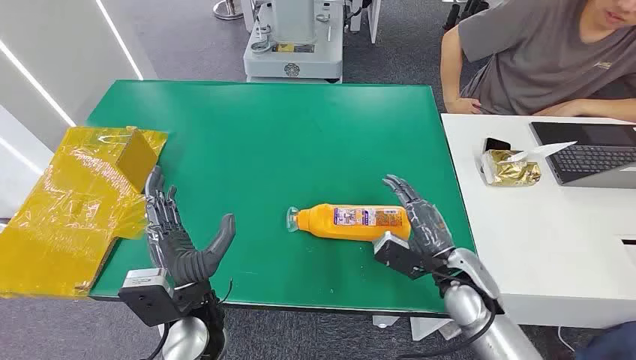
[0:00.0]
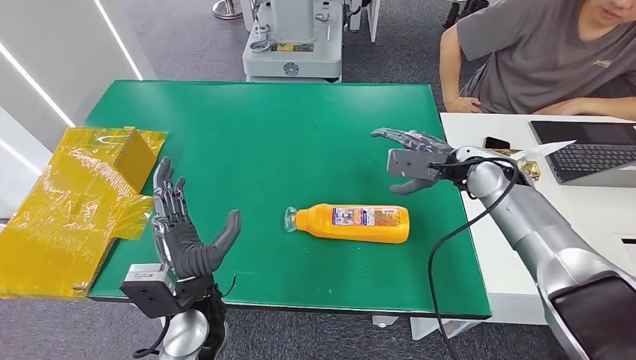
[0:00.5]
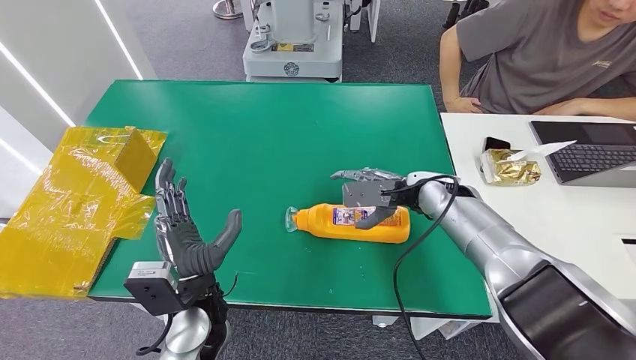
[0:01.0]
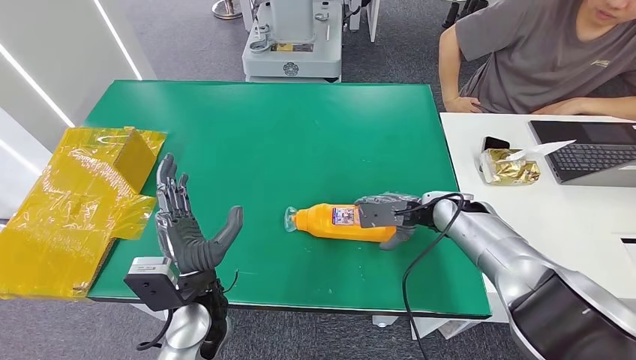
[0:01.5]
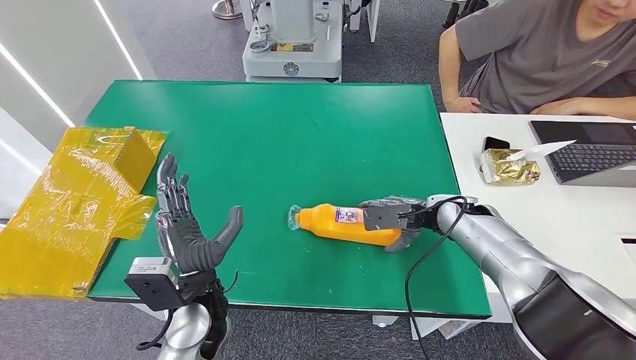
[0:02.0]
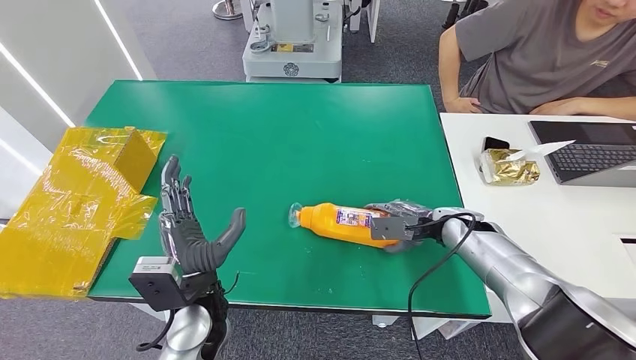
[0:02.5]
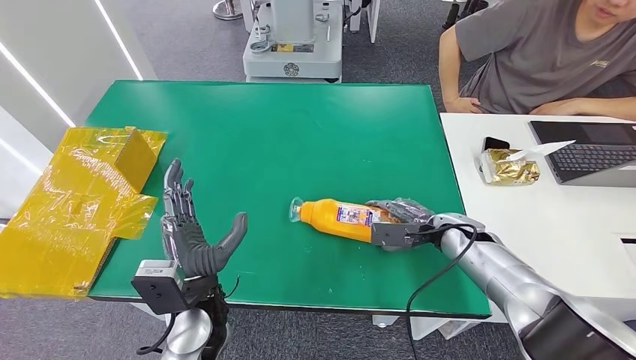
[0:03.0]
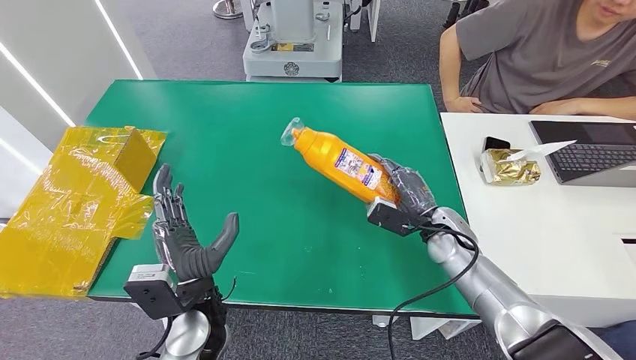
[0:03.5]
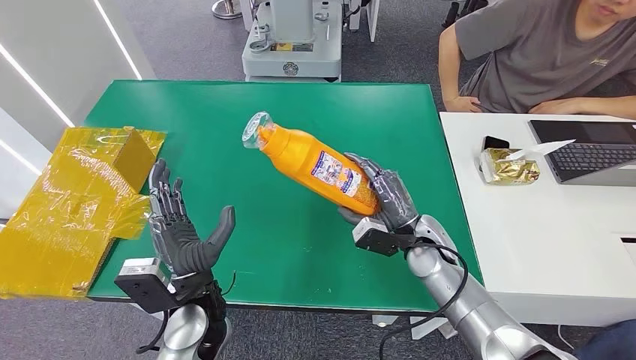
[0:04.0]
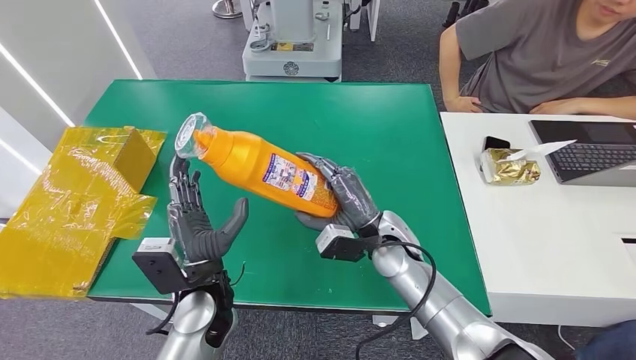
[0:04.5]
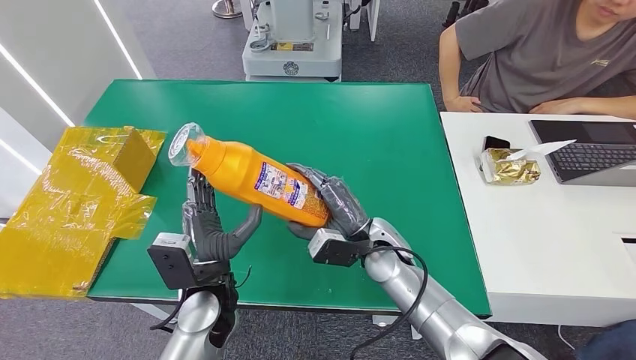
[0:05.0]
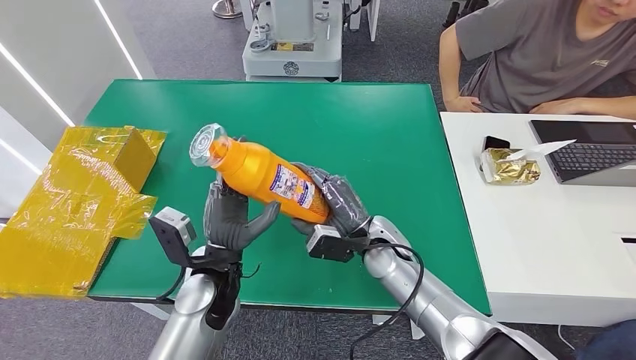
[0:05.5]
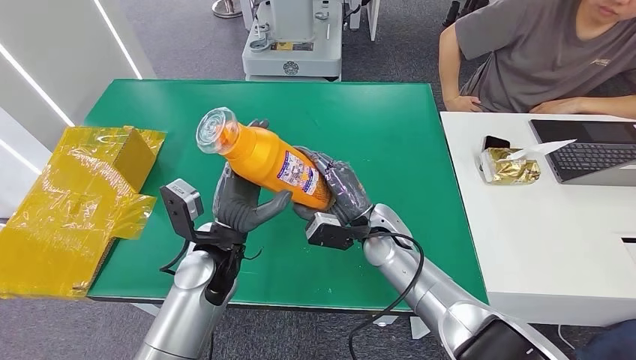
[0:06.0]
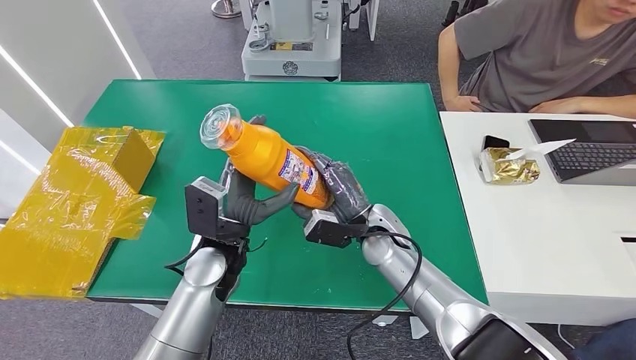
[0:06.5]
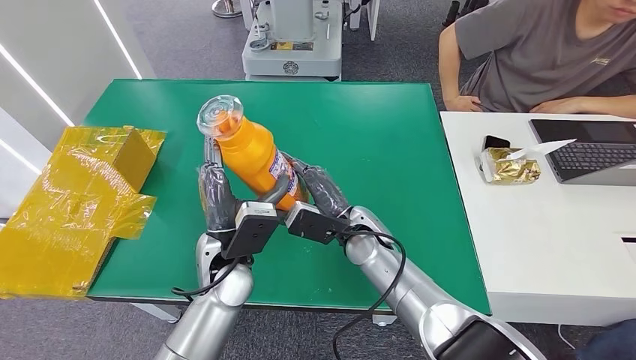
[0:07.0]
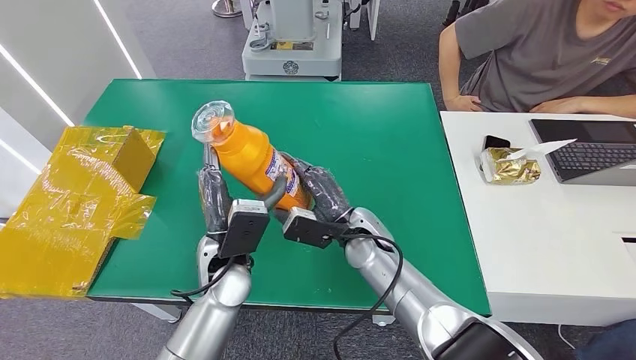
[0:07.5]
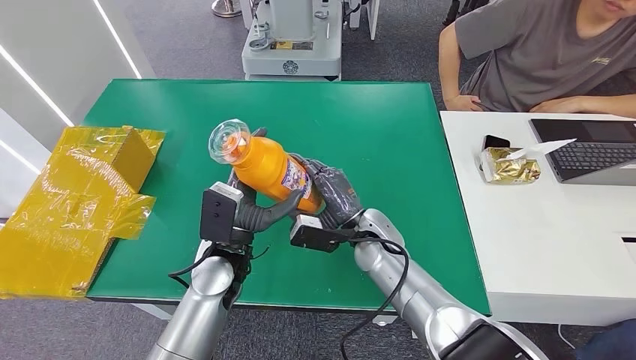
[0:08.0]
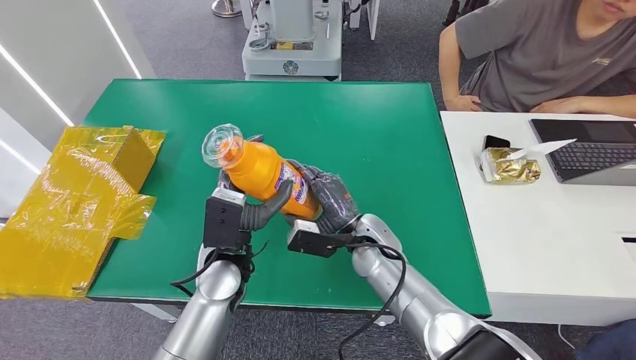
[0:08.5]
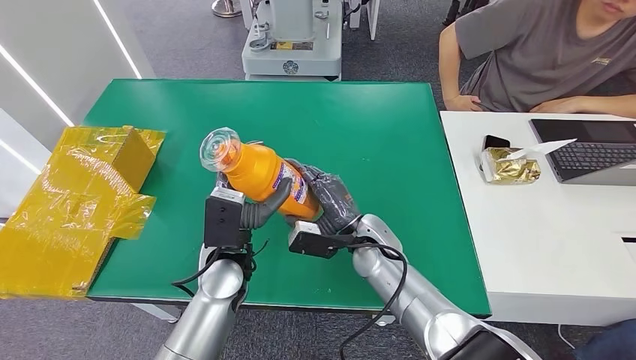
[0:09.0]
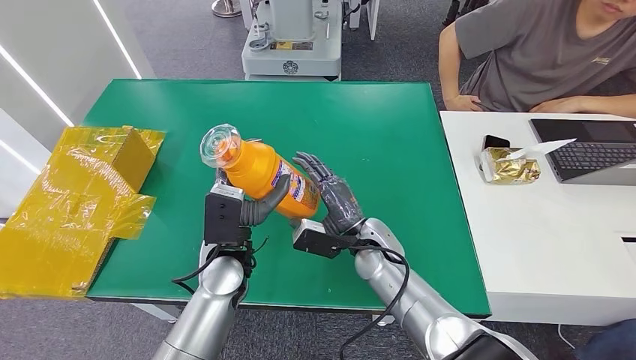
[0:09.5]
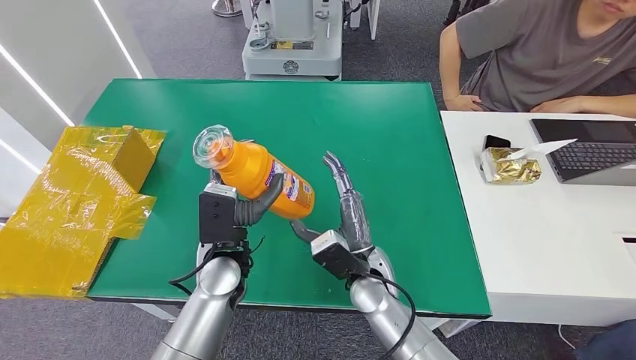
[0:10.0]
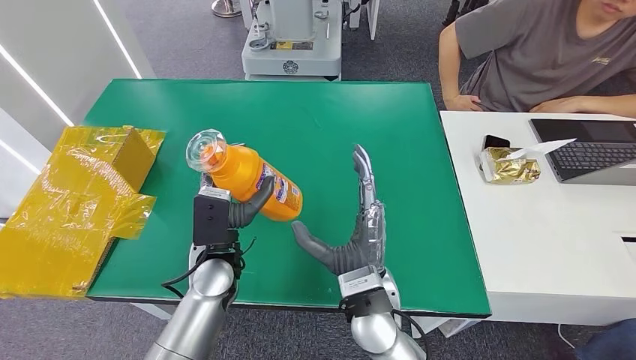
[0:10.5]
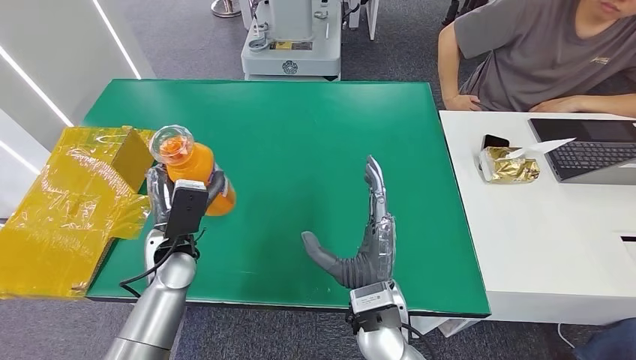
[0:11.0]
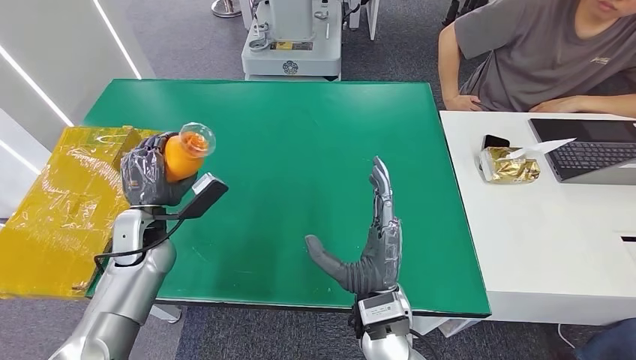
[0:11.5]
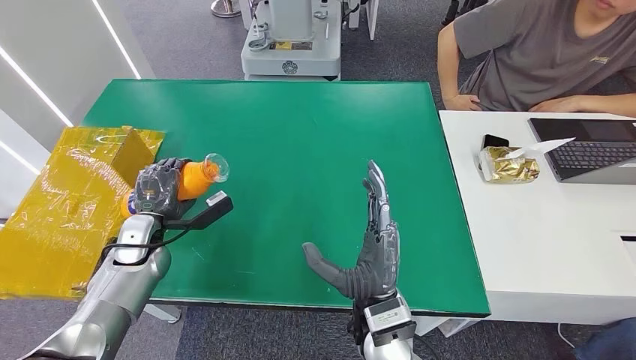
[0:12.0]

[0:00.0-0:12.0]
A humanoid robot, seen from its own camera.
Step, 0:00.0 to 0:04.5: Pick up the bottle from the table.
0:02.0 to 0:04.0: The right hand moves to the left and backward, roughly 10 cm.
0:04.0 to 0:06.0: The left hand heads forward, covering about 5 cm. The right hand shifts about 10 cm to the left.
0:08.0 to 0:10.0: The right hand travels backward by roughly 5 cm.
0:10.0 to 0:12.0: The right hand travels backward by approximately 10 cm; the left hand moves to the left, roughly 20 cm.

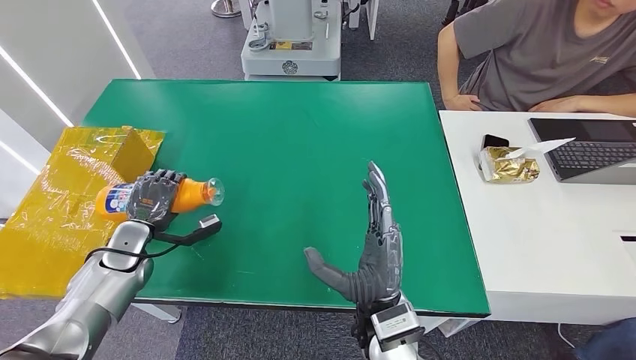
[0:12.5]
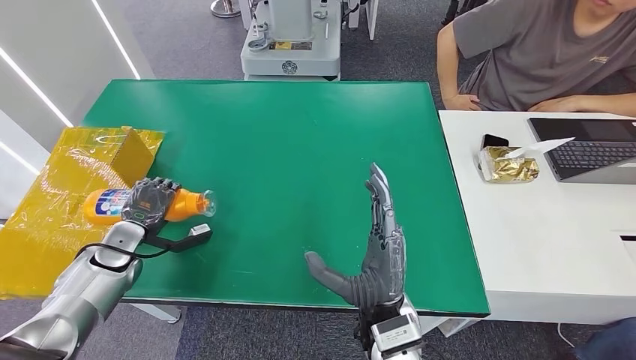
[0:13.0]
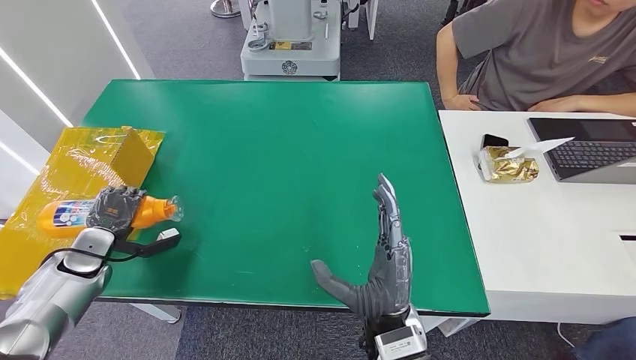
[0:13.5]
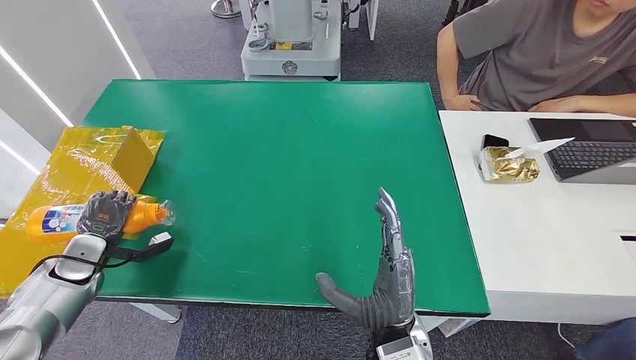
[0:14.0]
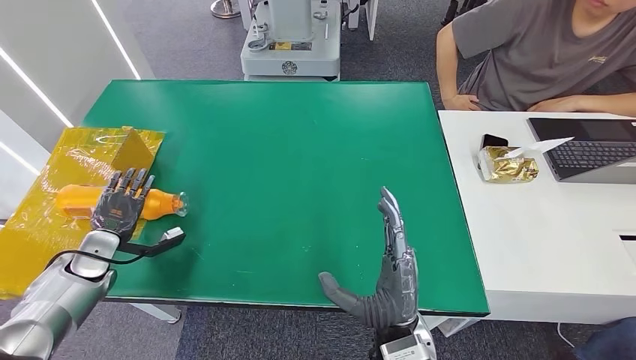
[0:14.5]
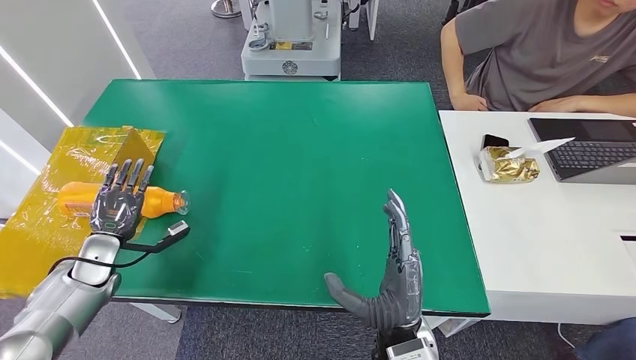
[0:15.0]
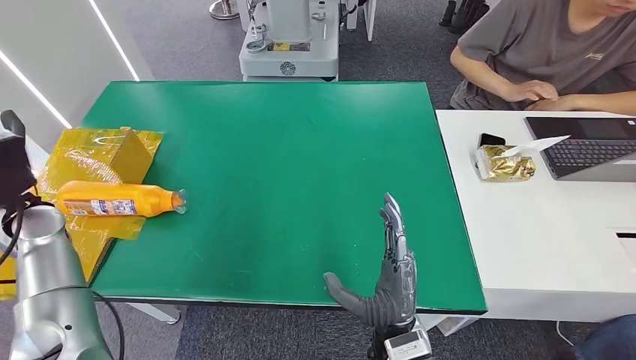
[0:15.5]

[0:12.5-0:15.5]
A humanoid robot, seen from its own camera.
Step, 0:12.5 to 0:15.5: Turn the bottle to the front side.
0:12.5 to 0:14.0: The left hand travels to the left by some 10 cm.
0:14.0 to 0:15.5: The left hand is displaced upward and to the right by some 15 cm.
